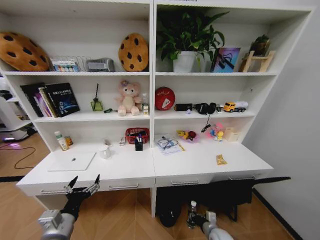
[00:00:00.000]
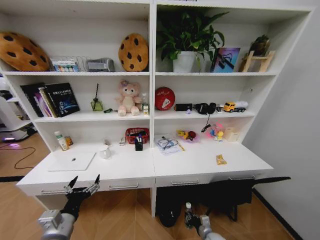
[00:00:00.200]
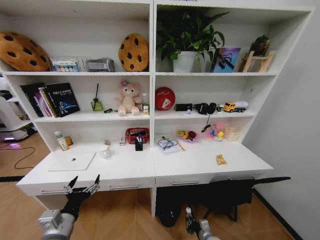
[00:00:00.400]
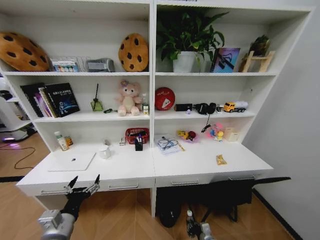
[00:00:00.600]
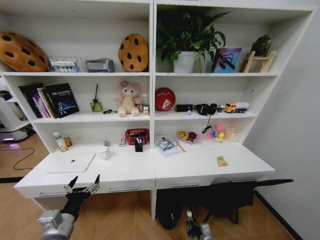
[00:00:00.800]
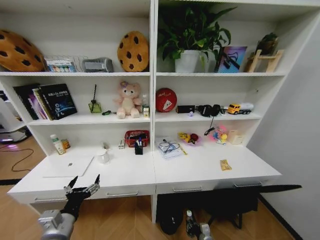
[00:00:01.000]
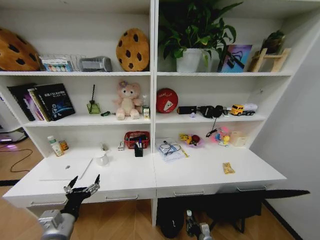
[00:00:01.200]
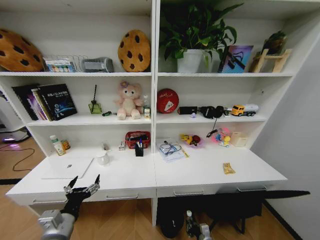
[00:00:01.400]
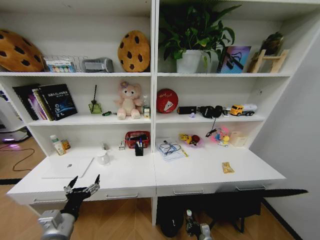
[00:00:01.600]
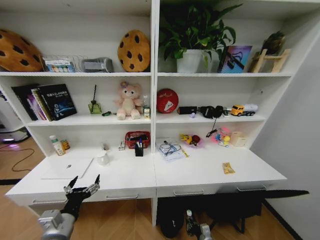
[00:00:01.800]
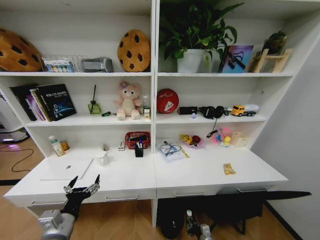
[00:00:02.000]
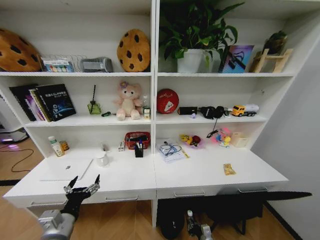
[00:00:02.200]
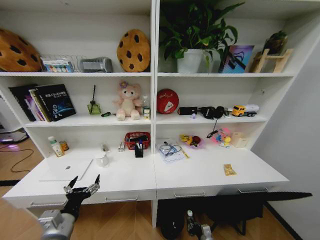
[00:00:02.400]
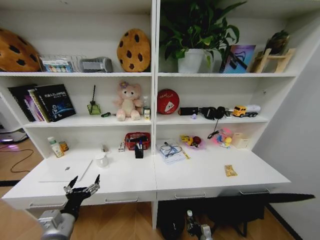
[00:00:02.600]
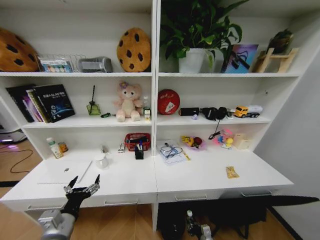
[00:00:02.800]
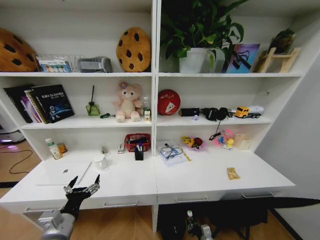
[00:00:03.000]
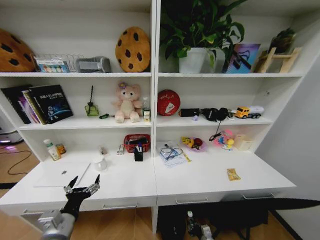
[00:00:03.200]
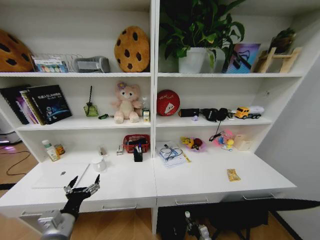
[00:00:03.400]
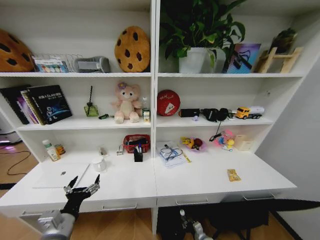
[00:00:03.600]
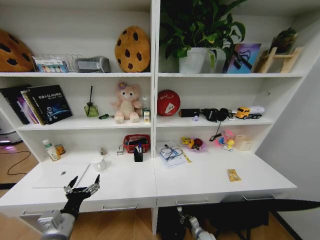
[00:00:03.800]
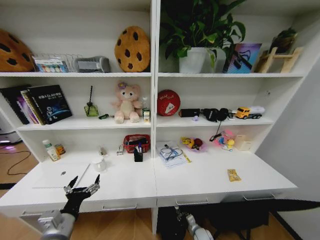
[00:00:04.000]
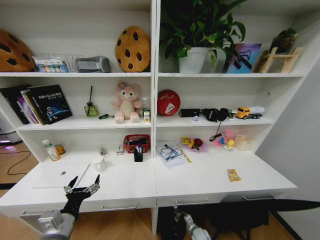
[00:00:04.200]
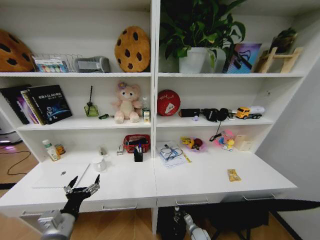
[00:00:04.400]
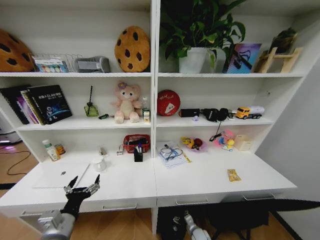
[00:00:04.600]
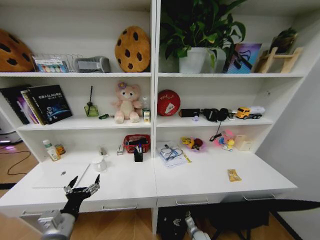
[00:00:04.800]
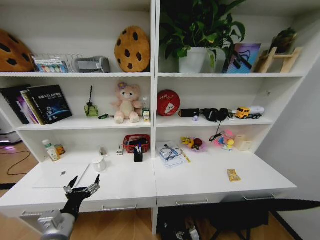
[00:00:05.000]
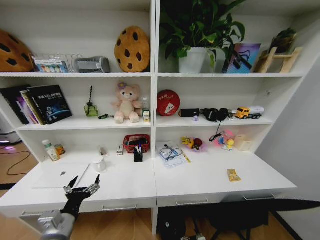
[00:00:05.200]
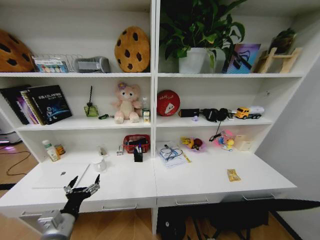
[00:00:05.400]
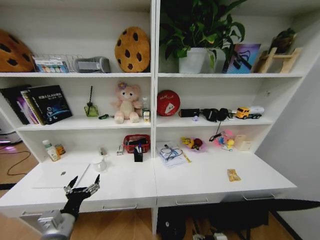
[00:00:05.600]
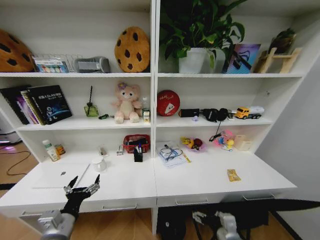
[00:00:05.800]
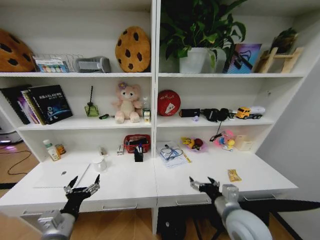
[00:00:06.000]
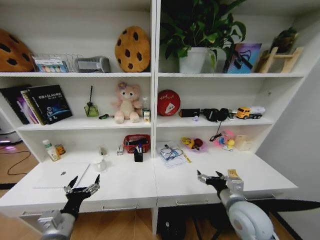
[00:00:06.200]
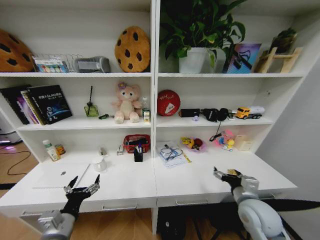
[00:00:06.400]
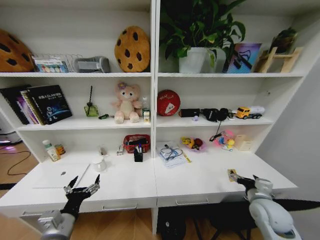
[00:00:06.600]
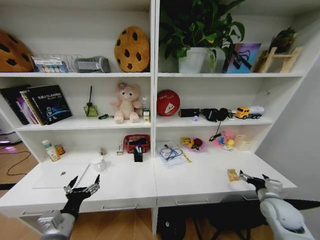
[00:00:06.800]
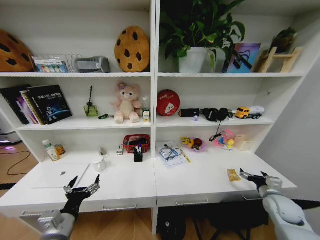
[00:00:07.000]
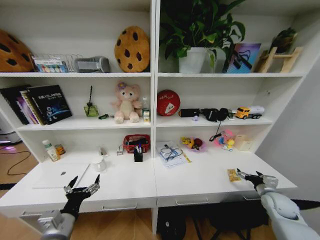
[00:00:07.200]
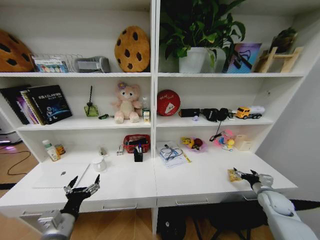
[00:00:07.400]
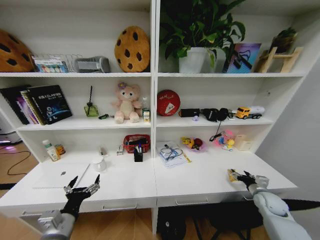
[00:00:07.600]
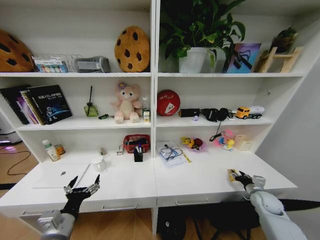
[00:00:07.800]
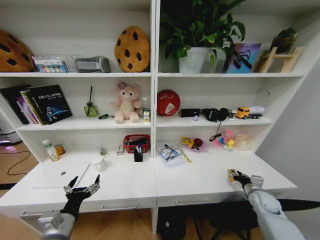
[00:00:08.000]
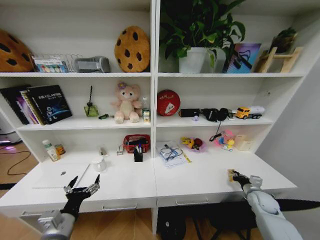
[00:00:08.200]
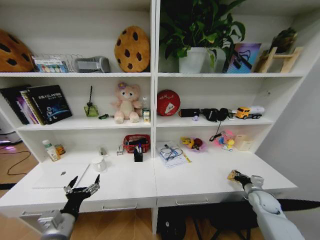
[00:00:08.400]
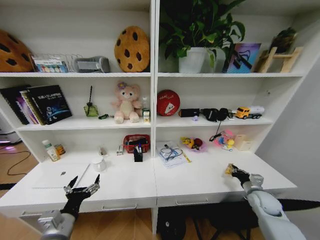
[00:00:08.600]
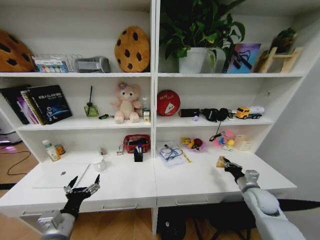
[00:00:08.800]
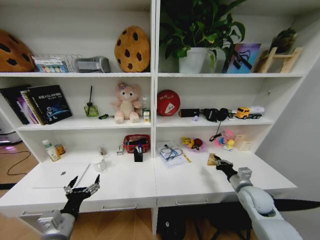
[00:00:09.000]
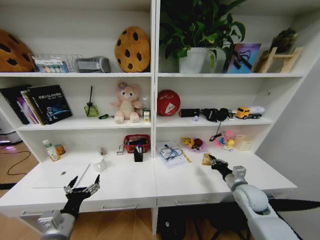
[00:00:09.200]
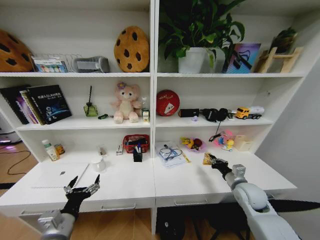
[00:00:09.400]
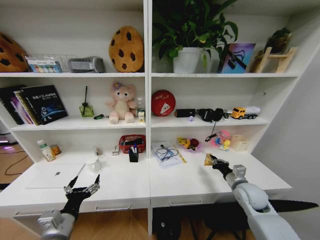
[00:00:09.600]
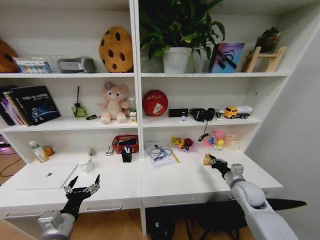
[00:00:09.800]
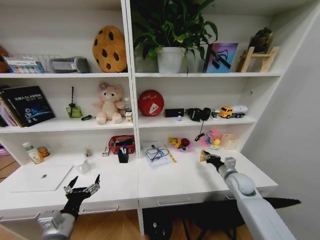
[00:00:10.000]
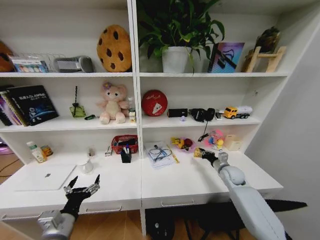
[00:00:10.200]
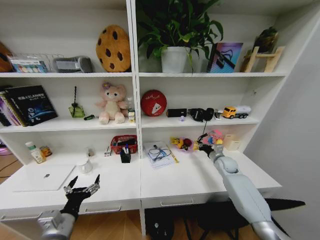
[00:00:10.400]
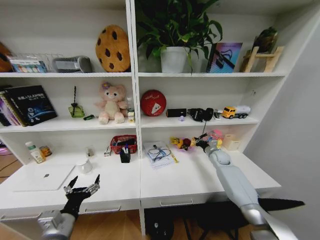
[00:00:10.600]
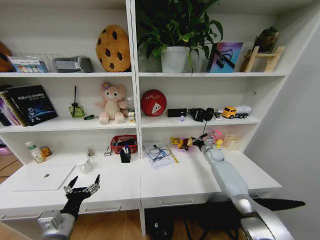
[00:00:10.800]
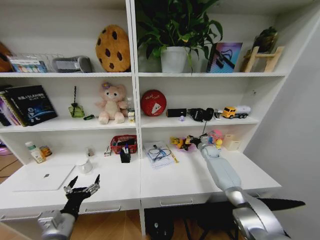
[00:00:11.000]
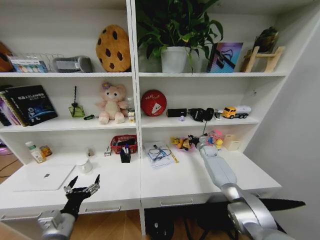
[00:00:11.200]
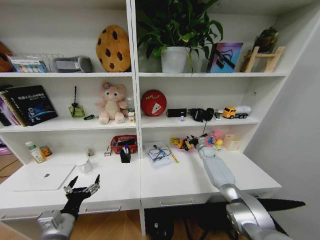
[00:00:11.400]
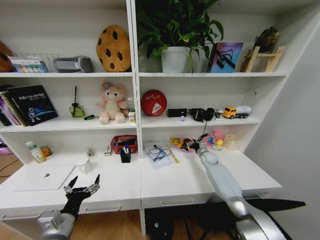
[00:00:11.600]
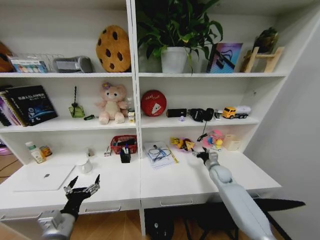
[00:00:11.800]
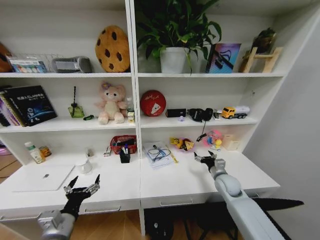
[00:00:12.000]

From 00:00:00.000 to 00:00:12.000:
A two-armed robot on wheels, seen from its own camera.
Task of the whole recording: Organize the objects on the table.
From 00:00:00.000 to 00:00:01.600: The right gripper heads downward, covering about 10 cm.
From 00:00:03.000 to 00:00:04.400: The right gripper shifts roughly 5 cm forward.
From 00:00:04.400 to 00:00:06.000: The right gripper shifts about 40 cm upward, and opens up.
From 00:00:06.000 to 00:00:07.600: The right gripper moves to the right, forward and downward, about 35 cm.
From 00:00:07.600 to 00:00:09.000: The right gripper goes approximately 15 cm to the left and upward, and closes its fingers.
From 00:00:09.000 to 00:00:10.400: The right gripper is displaced forward by approximately 20 cm.
From 00:00:10.400 to 00:00:12.000: The right gripper is displaced backward by approximately 10 cm, and opens.

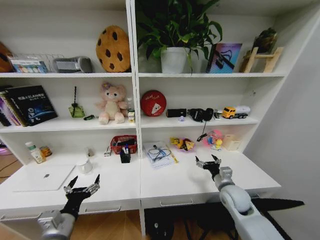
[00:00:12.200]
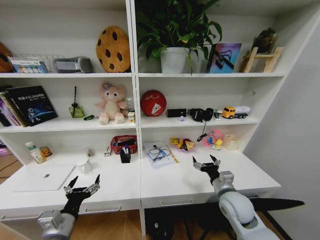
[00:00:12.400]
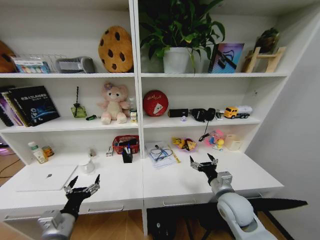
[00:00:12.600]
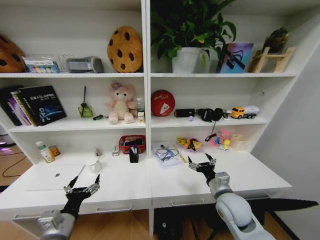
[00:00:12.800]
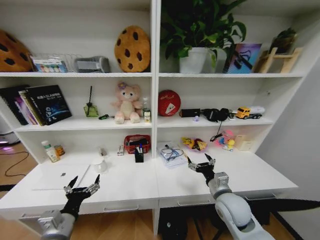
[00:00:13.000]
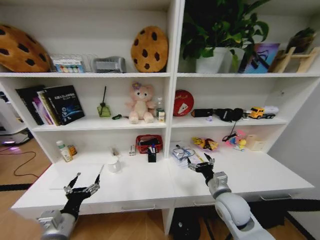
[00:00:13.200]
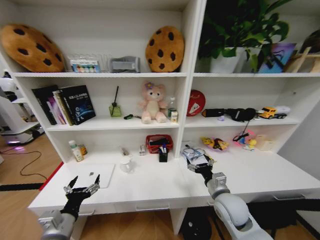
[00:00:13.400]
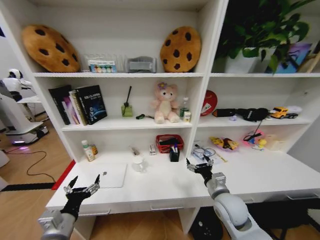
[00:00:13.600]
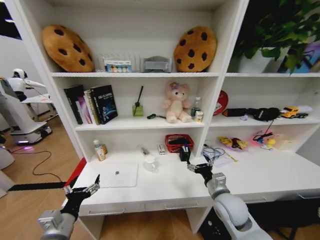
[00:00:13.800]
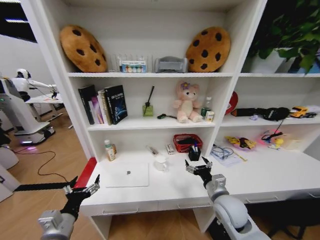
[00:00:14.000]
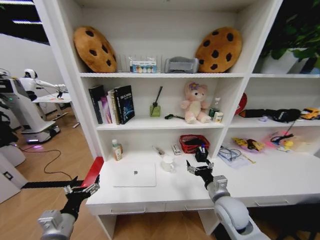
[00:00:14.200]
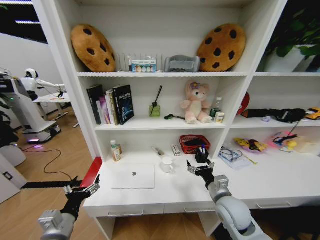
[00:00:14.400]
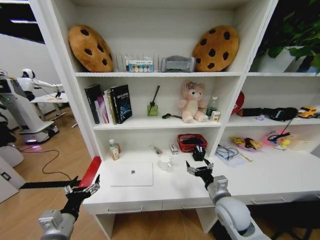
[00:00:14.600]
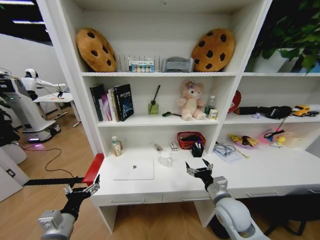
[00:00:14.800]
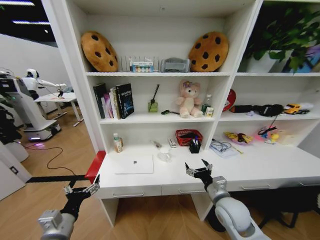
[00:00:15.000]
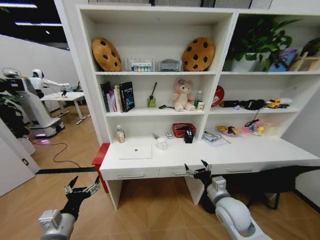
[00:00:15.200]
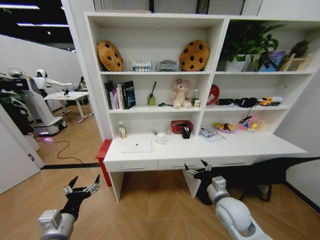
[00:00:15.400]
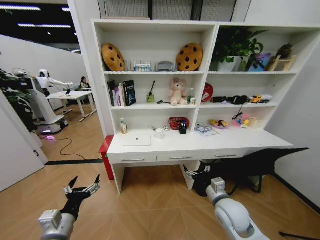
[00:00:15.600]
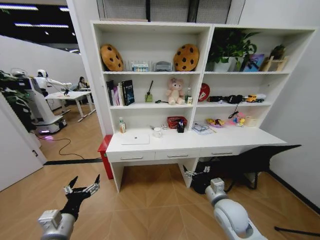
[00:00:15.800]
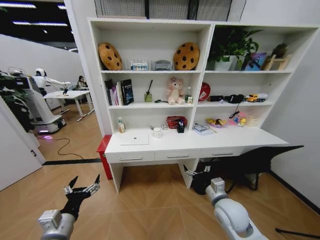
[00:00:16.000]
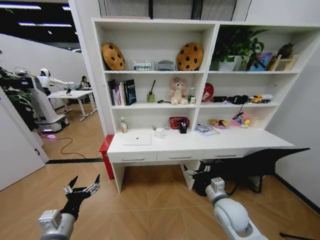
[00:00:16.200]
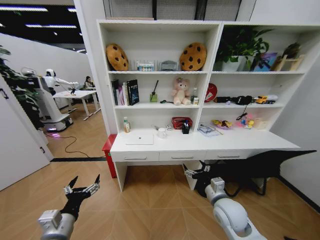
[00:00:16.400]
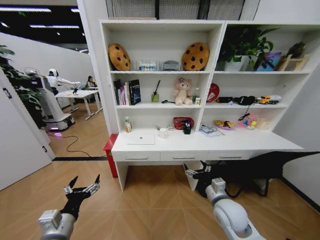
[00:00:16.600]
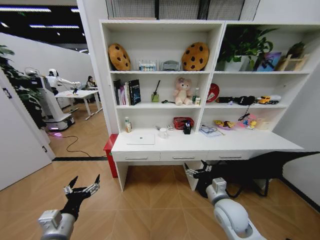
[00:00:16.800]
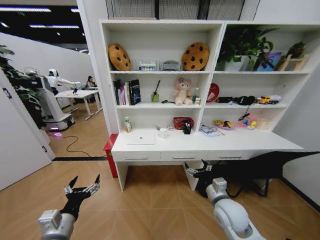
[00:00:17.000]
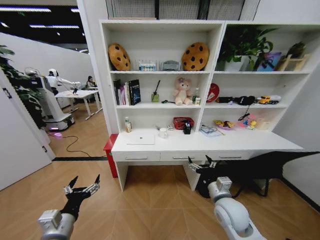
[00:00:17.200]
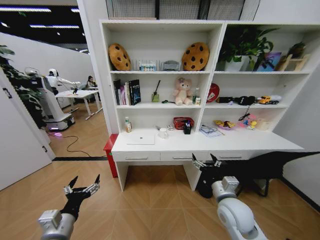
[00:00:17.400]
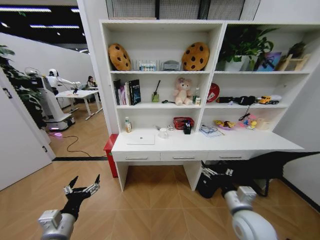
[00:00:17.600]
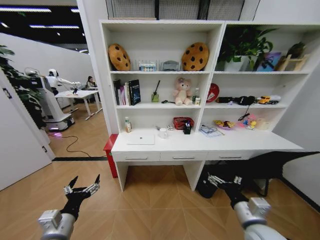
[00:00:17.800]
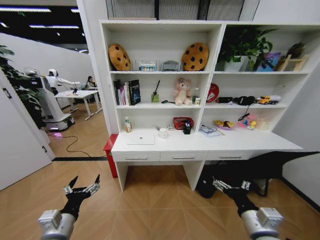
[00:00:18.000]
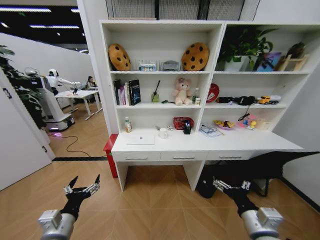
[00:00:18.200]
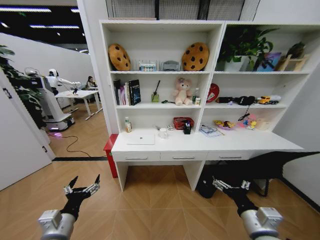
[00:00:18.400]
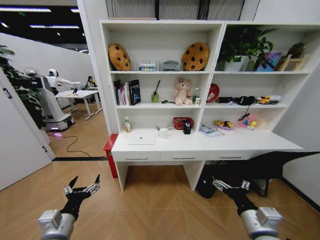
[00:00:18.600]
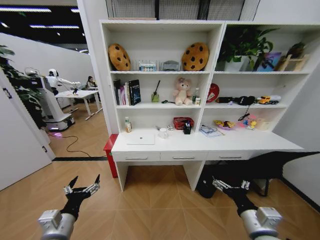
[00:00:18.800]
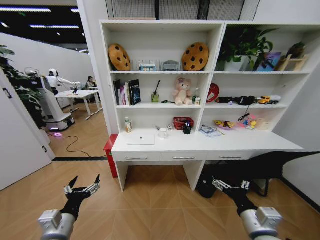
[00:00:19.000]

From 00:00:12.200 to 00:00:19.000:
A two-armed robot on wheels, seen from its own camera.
Task of the whole recording: Organize the objects on the table.
From 00:00:12.200 to 00:00:13.600: The right gripper shifts about 5 cm to the left.
From 00:00:16.200 to 00:00:17.600: The right gripper ends up roughly 5 cm from where it was.
From 00:00:17.600 to 00:00:19.000: The right gripper is displaced backward by about 5 cm.
